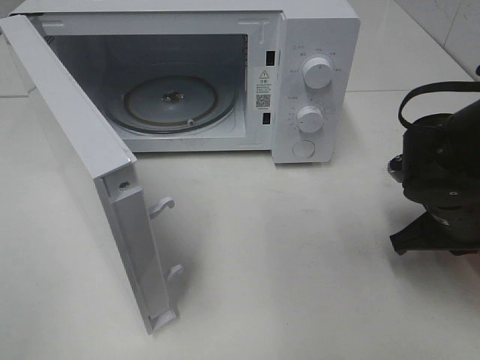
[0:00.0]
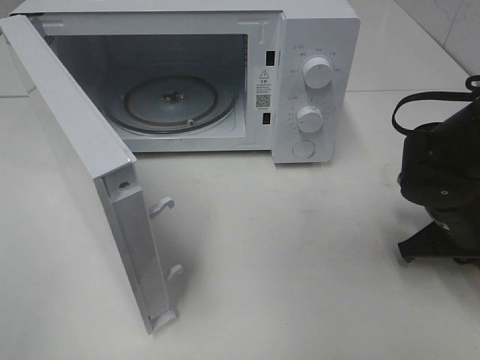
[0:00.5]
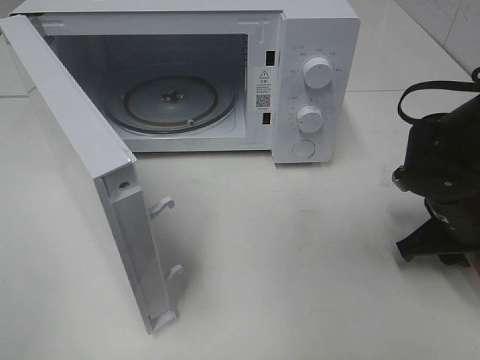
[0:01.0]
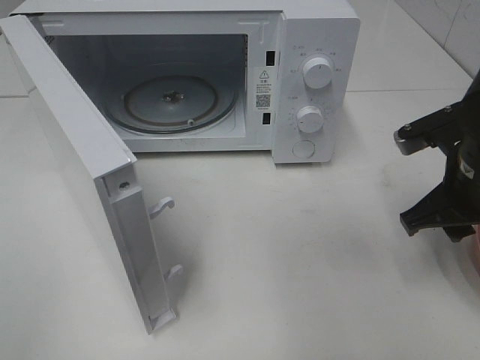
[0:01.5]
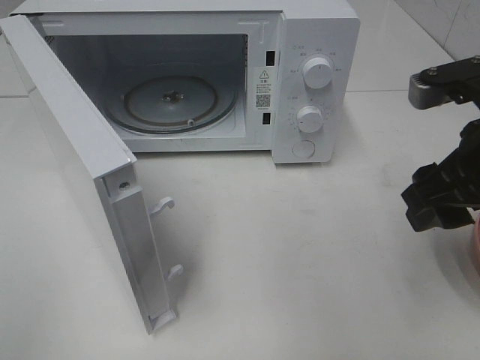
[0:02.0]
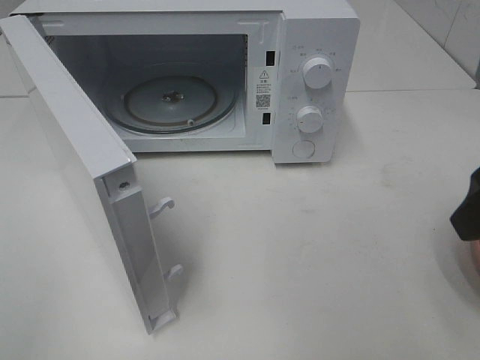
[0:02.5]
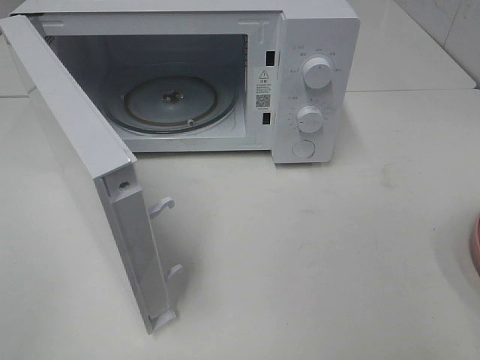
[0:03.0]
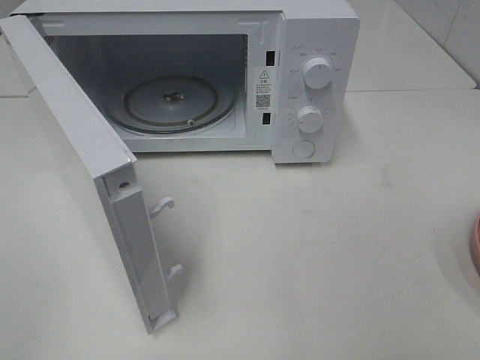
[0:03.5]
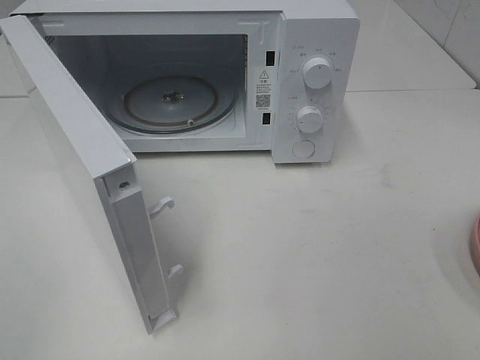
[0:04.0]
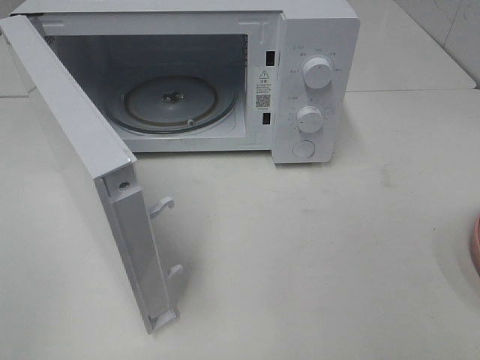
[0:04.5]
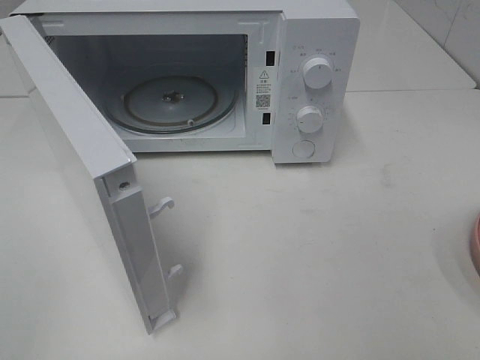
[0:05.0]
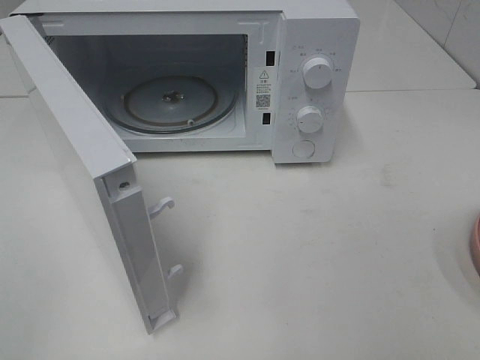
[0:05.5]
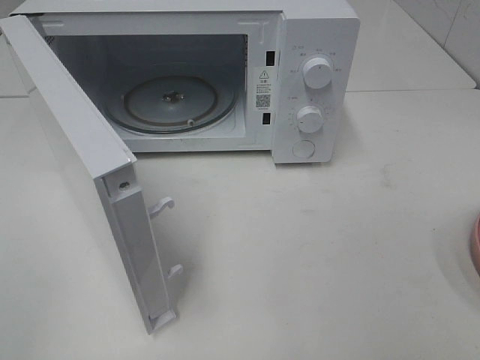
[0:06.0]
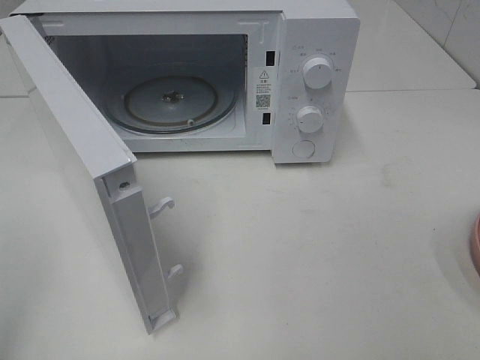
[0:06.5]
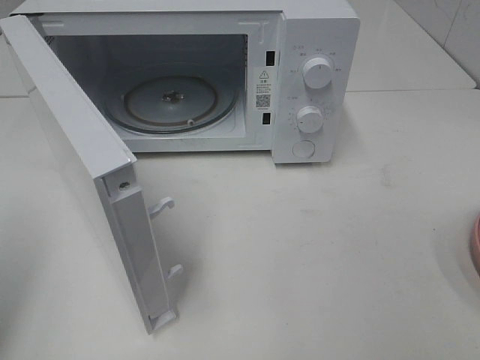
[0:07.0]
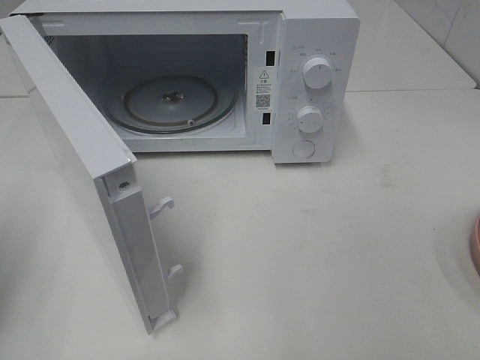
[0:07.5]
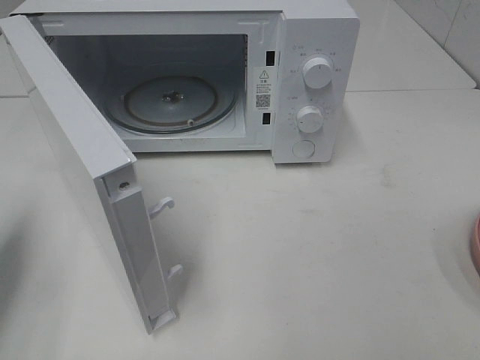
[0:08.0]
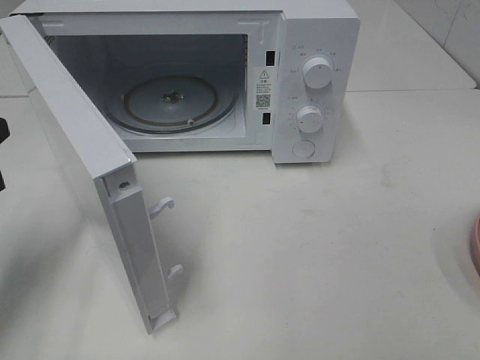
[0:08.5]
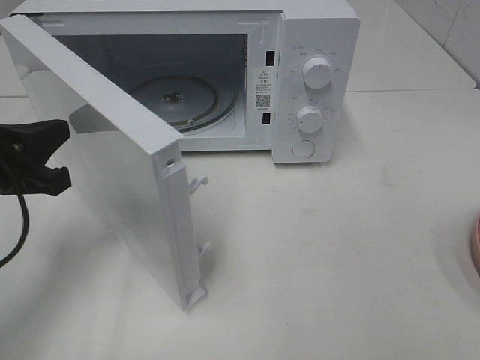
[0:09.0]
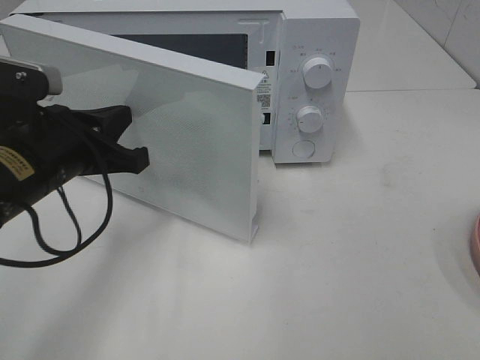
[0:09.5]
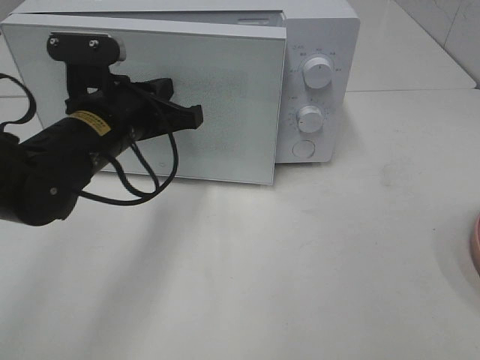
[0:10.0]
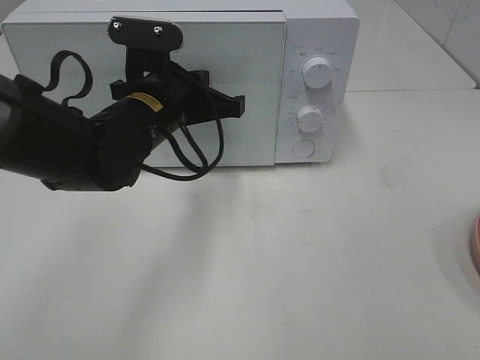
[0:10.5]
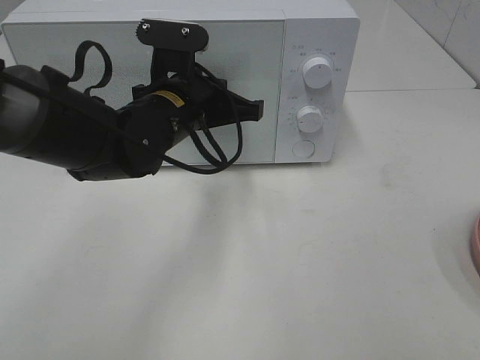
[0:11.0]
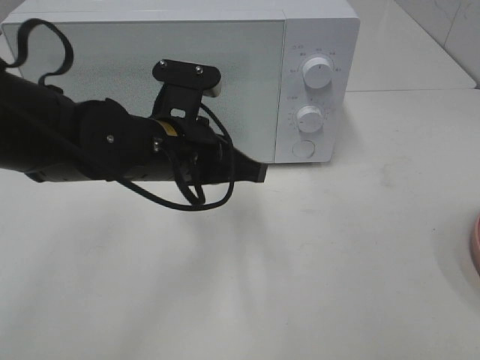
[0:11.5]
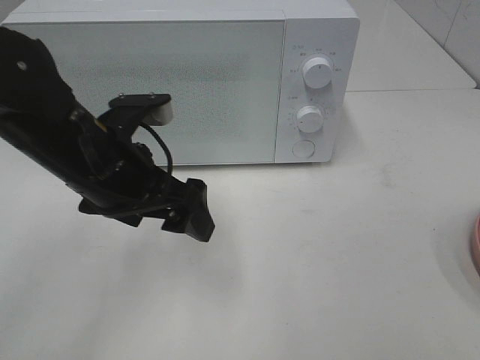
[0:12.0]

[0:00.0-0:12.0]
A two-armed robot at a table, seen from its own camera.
Task of the whole recording: Heat the burger.
Step, 0:01.5 to 0:11.0: Left hand: close the microwave door.
0:00.0 to 0:02.0: The right gripper travels upward by about 15 cm, and opens up.
0:02.0 to 0:04.0: The right gripper heads backward and to the right, covering approximately 20 cm.
0:04.0 to 0:06.0: Both grippers stay put.
0:06.0 to 0:08.0: The left gripper shifts about 20 cm forward, and closes its fingers.
0:08.0 to 0:10.0: The left gripper shifts about 25 cm to the right and forward.
0:10.0 to 0:12.0: The left gripper opens its fingers.

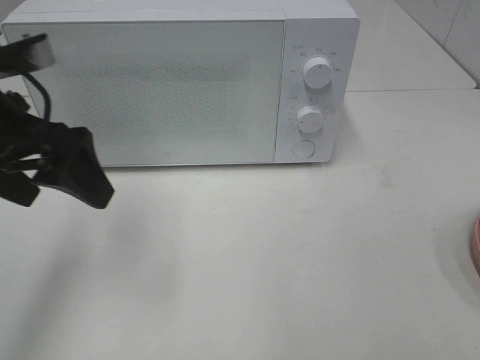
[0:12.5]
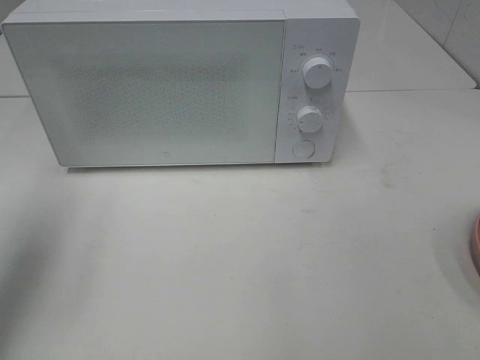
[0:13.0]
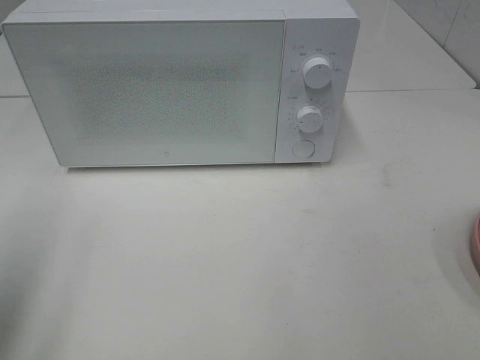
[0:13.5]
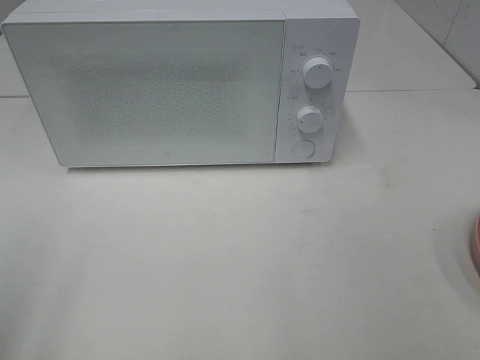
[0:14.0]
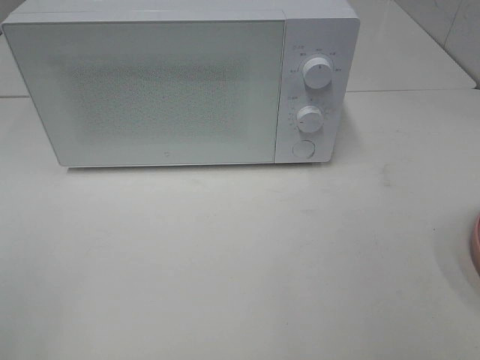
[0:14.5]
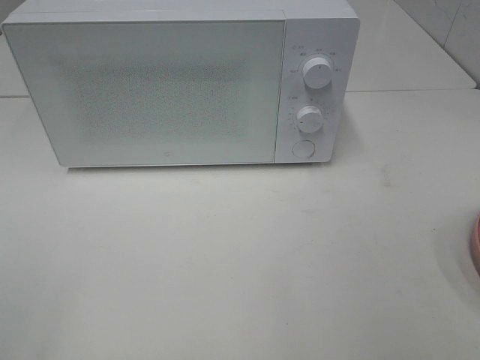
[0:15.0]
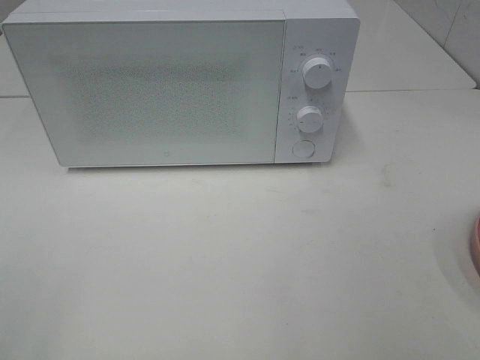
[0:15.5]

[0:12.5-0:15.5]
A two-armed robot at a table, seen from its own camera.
Task of the whole recording: Heat the burger.
0:12.5 to 0:14.0: The left gripper travels backward and to the left by some 20 cm.

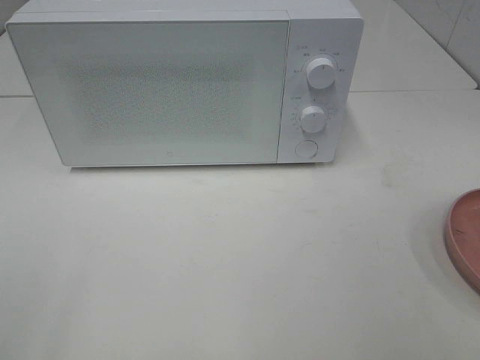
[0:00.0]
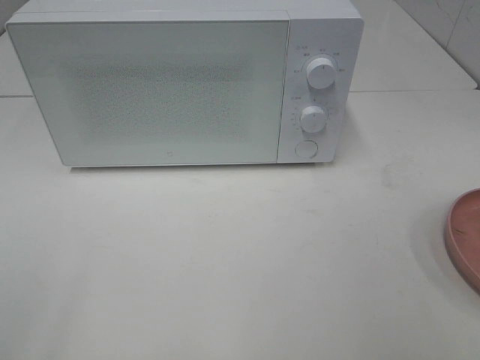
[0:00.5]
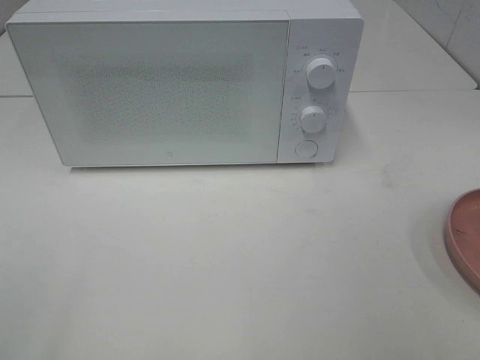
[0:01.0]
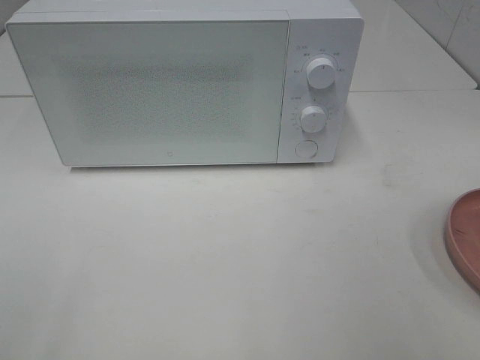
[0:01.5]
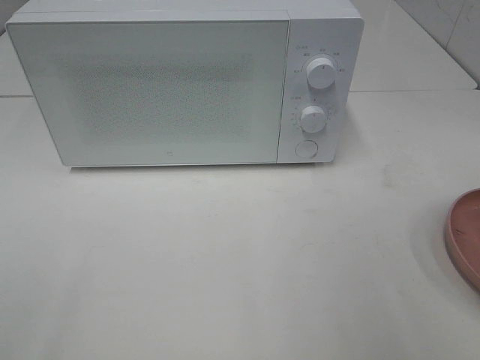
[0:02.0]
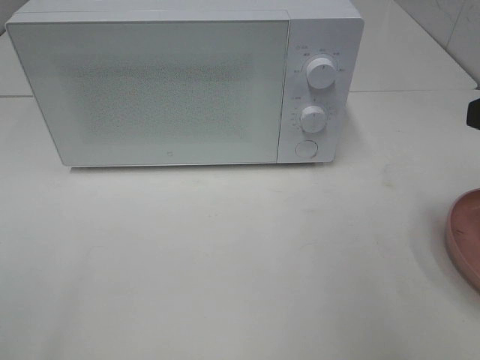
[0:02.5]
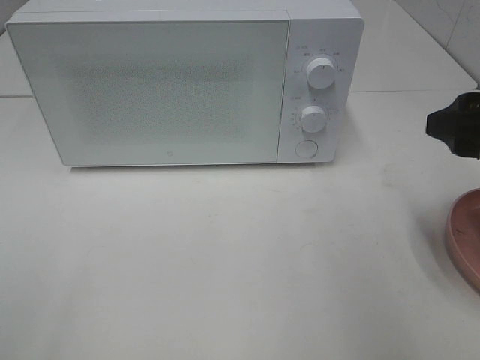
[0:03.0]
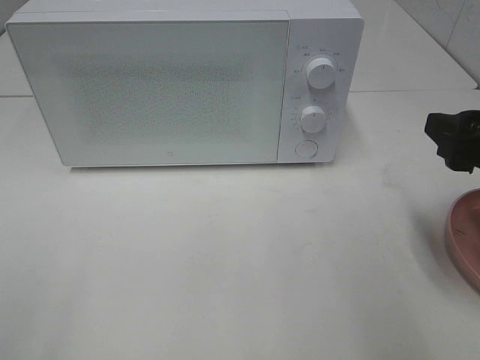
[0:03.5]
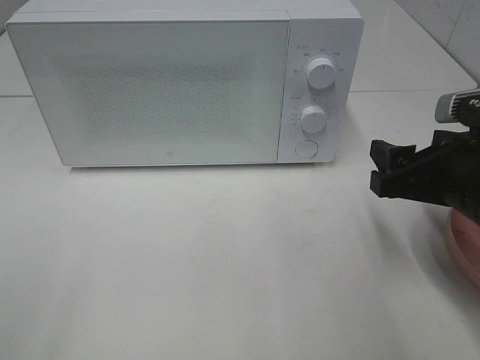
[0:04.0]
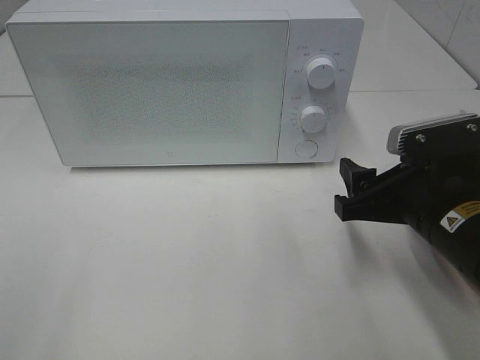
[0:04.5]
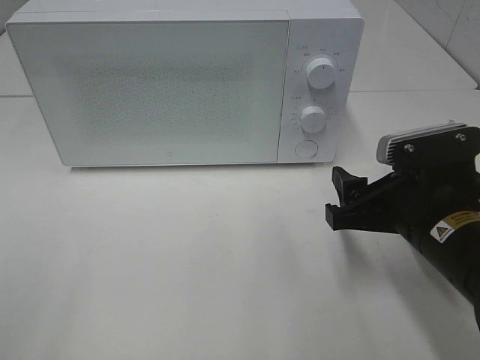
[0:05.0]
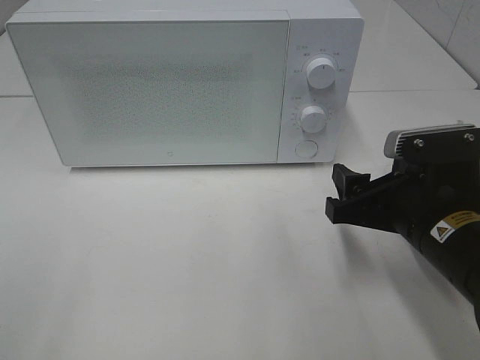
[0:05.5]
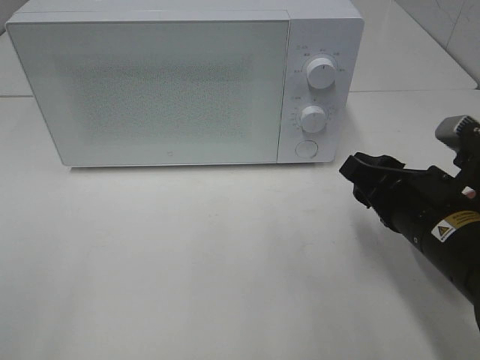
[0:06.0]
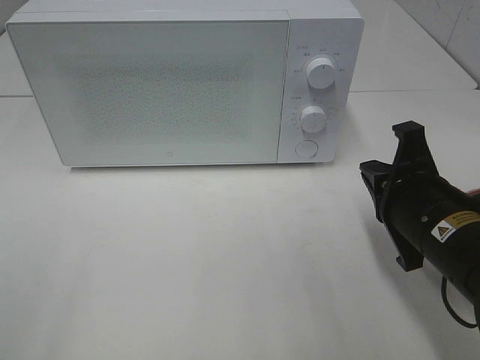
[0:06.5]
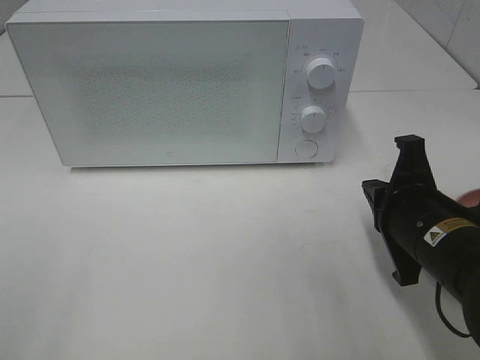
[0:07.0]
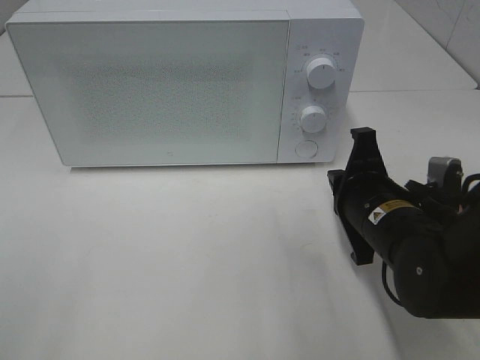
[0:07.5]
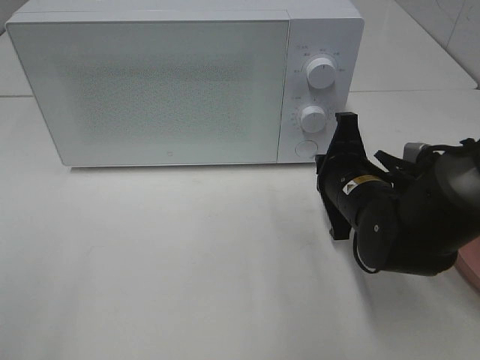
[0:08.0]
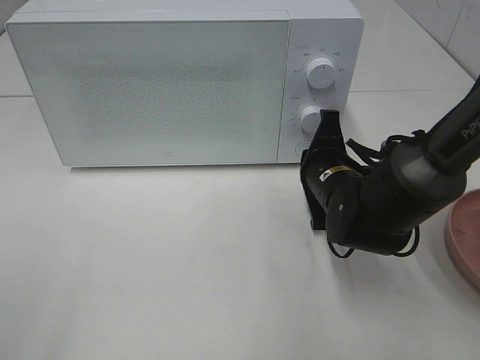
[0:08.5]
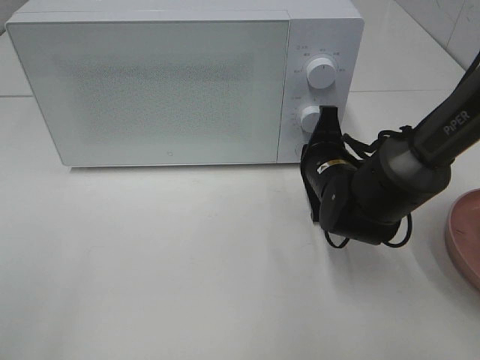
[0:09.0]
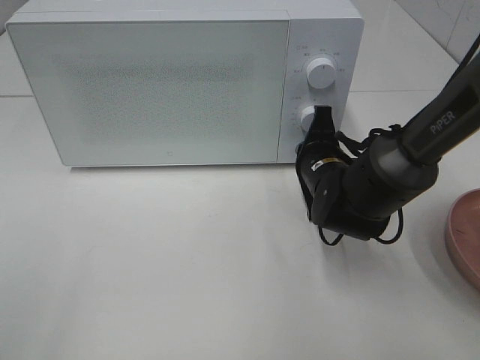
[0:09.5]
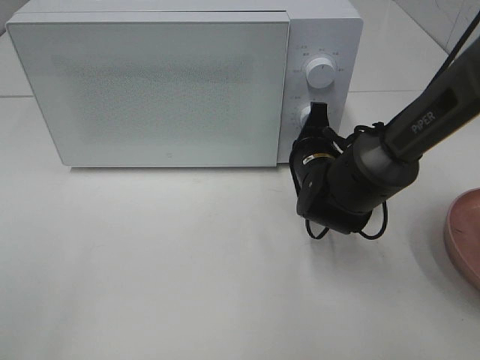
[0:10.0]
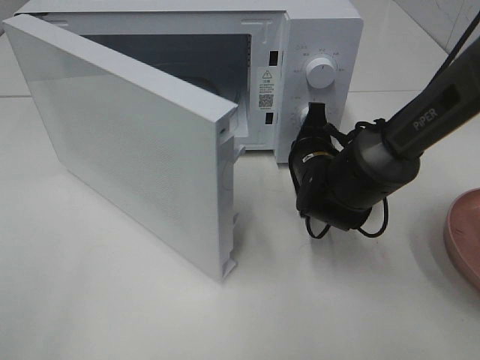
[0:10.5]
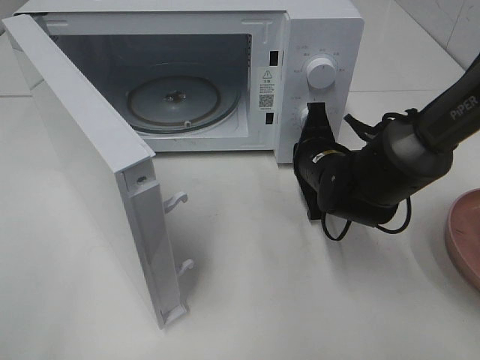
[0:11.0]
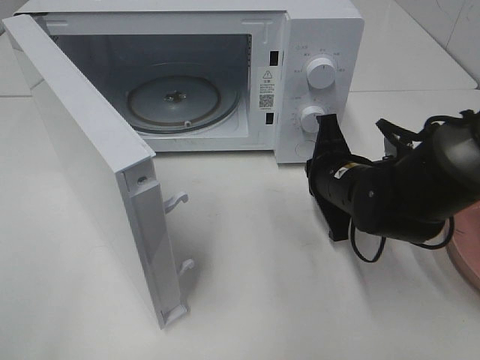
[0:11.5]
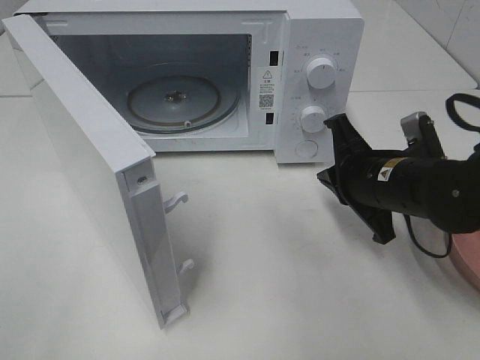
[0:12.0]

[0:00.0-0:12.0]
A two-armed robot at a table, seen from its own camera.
Task of the whole recording: Heat the burger.
Step, 0:00.0 to 0:11.5: Right hand: press the switch.
0:02.0 to 0:04.0: The right gripper is displaced downward and forward by approximately 15 cm.
0:06.0 to 0:08.0: The right gripper is displaced forward by about 10 cm, and closes.
0:08.0 to 0:10.0: The right gripper is displaced forward by about 5 cm.
0:10.0 to 0:12.0: The right gripper heads backward and upward, covering about 10 cm.
